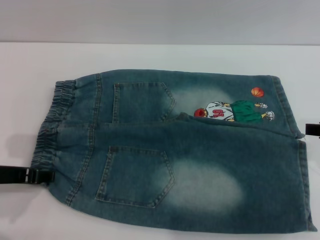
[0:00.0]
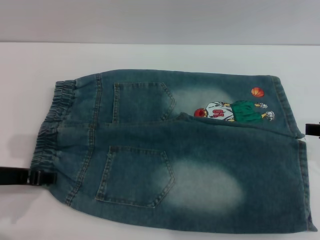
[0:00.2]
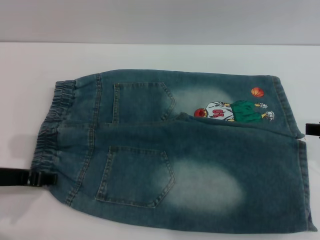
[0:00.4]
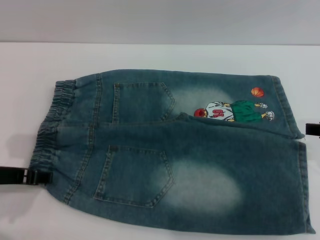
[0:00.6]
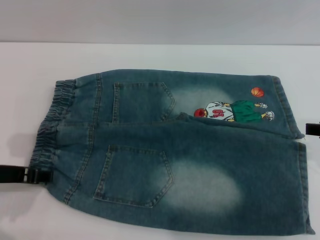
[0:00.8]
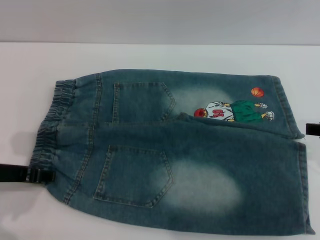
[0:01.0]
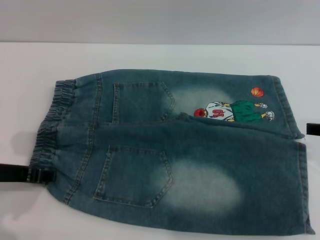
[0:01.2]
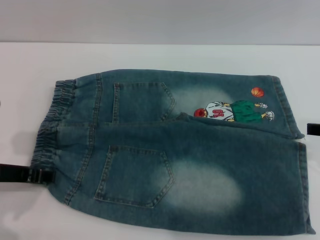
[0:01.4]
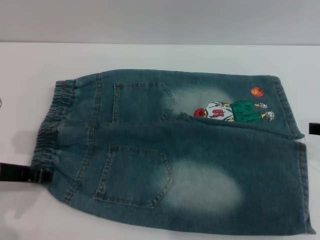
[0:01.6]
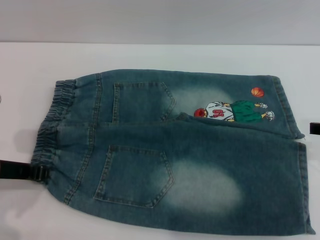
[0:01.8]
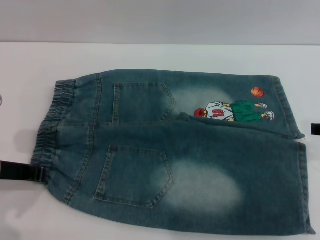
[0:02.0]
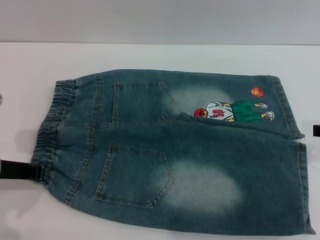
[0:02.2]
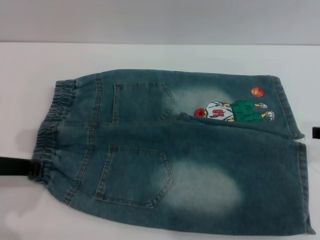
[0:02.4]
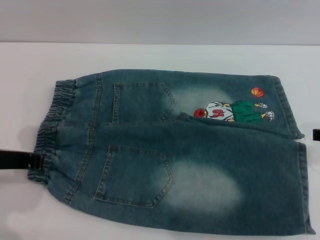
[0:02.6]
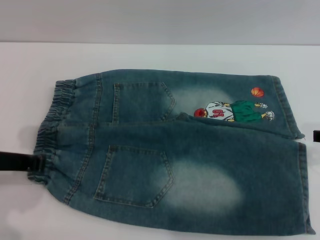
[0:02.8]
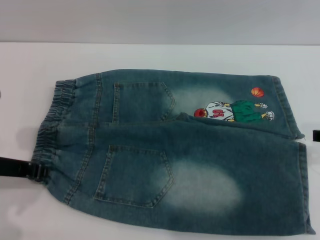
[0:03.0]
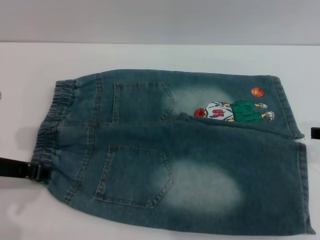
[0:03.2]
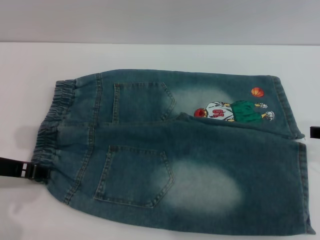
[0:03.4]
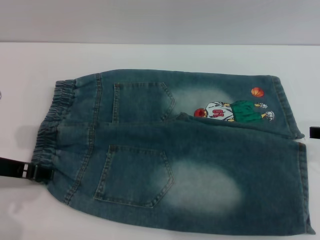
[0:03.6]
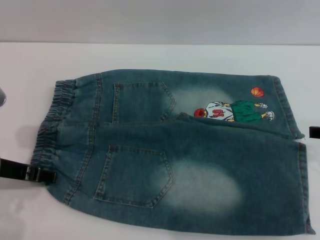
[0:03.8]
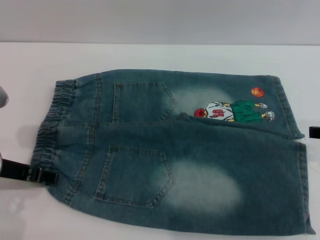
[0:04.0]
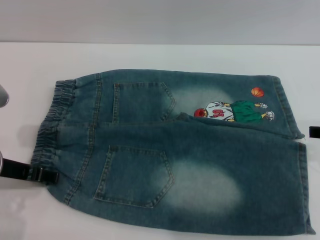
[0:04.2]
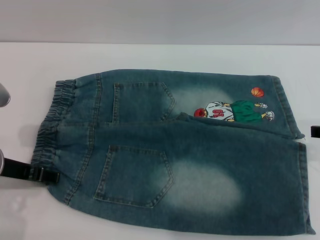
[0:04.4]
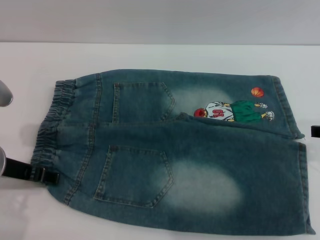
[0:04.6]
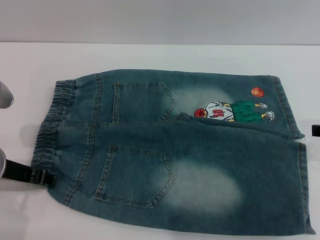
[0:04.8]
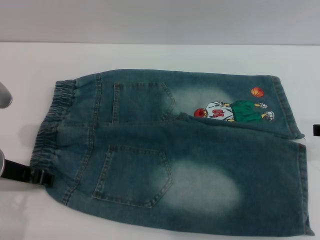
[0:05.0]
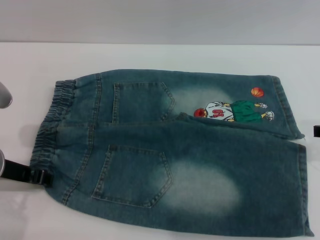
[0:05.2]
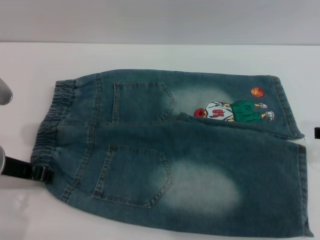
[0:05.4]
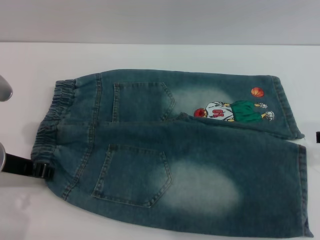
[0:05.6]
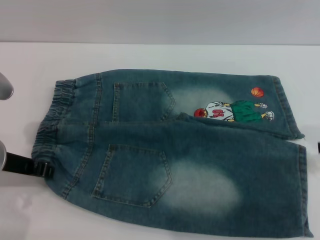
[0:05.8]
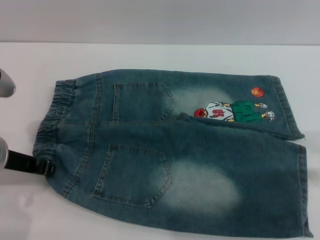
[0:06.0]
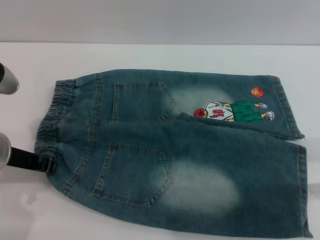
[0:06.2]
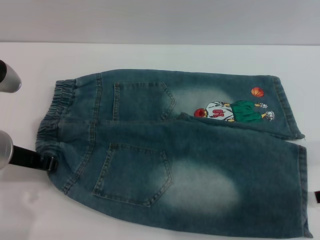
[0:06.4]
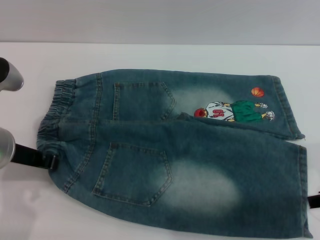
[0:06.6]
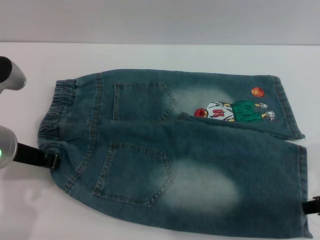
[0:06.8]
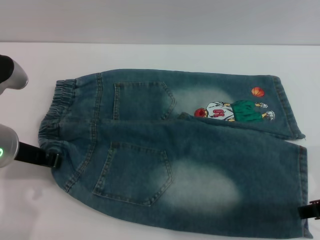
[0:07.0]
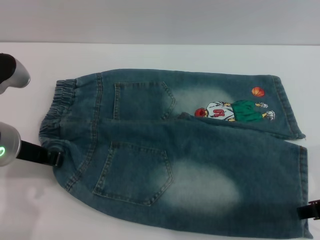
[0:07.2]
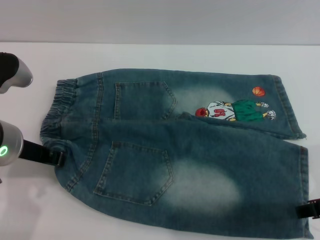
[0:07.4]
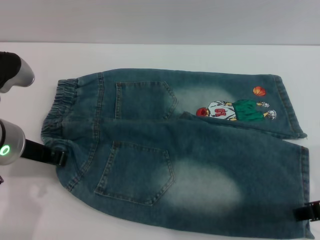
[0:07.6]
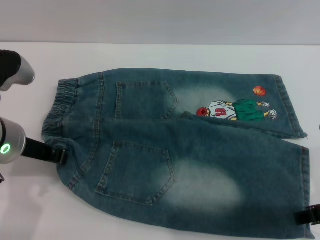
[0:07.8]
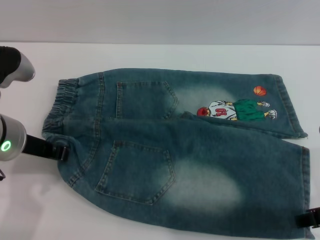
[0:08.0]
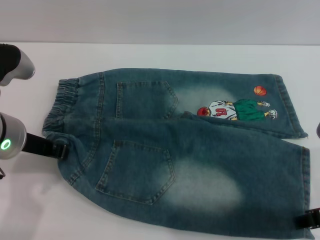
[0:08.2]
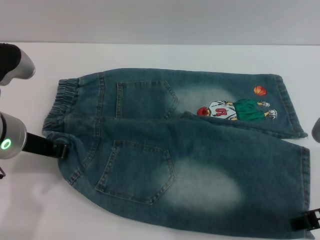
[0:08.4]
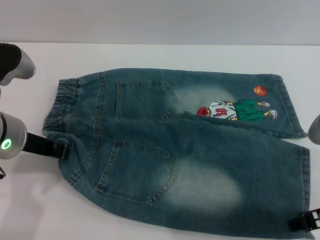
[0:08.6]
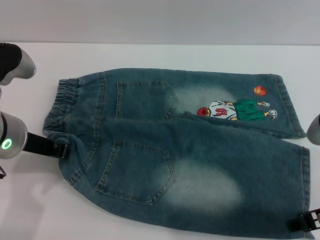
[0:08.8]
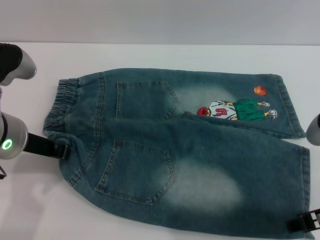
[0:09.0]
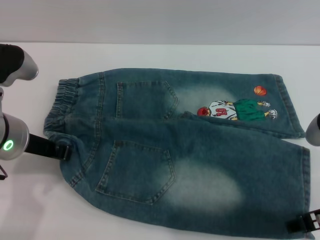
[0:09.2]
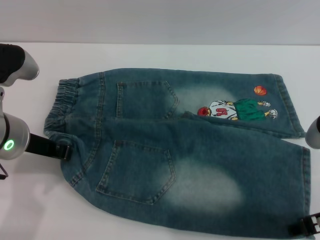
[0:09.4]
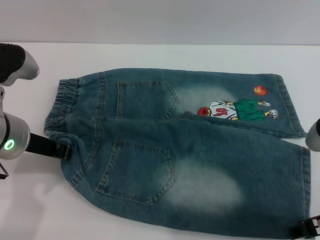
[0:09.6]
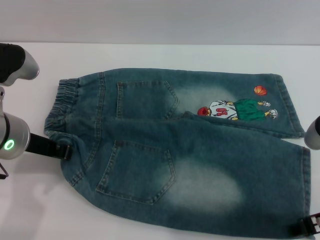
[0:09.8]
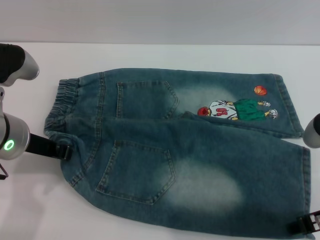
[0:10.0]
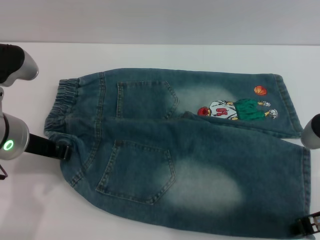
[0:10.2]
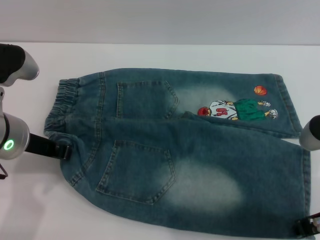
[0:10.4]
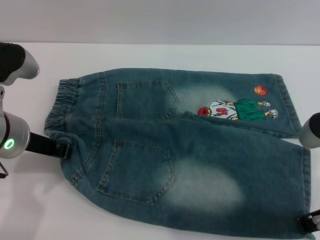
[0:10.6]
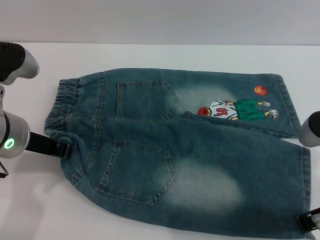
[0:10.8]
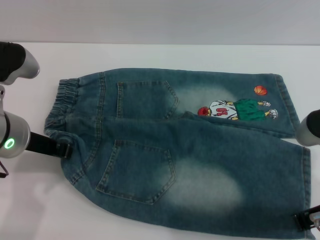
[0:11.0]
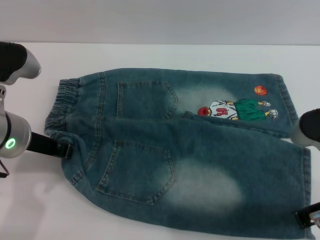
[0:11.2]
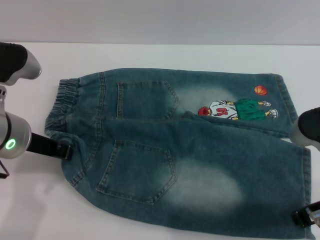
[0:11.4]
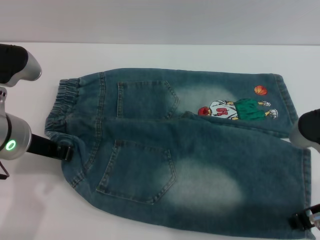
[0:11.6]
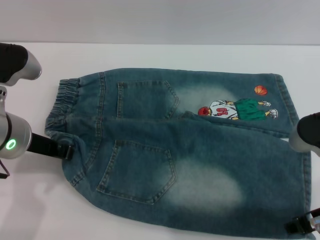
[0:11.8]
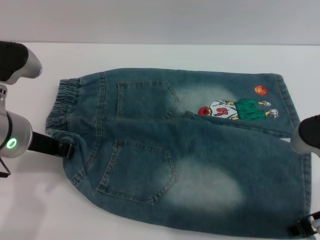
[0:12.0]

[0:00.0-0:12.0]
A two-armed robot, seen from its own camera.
0:00.0 to 0:01.6: Both grippers stay put.
0:01.6 to 0:03.0: The left gripper closes up.
0:03.0 to 0:04.4: The left gripper opens up.
0:04.4 to 0:06.0: The left gripper closes.
0:06.0 to 0:07.6: There are only small adjustments of the grippers.
0:07.6 to 0:09.0: Both grippers stay about where they are.
0:09.0 to 0:10.4: Neither gripper changes place.
0:10.4 to 0:12.0: The right gripper closes and opens again.

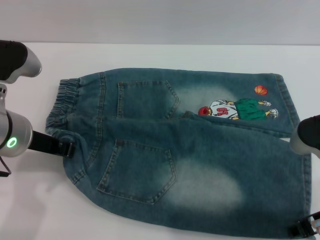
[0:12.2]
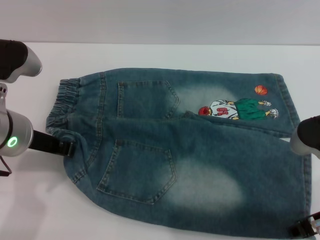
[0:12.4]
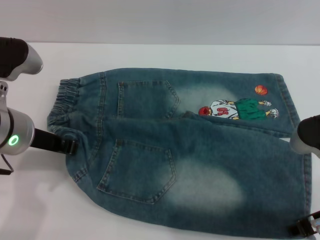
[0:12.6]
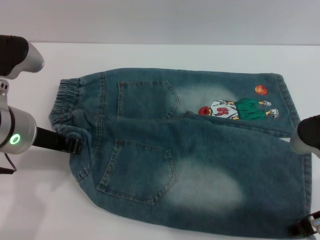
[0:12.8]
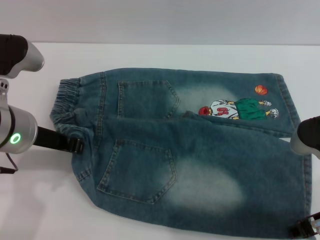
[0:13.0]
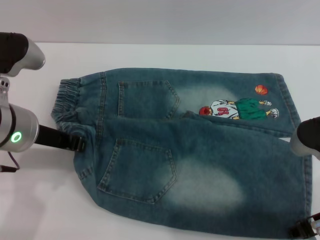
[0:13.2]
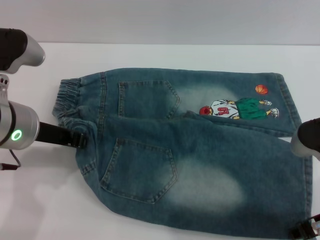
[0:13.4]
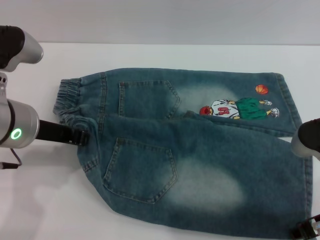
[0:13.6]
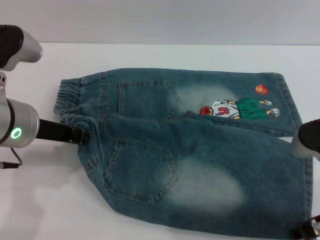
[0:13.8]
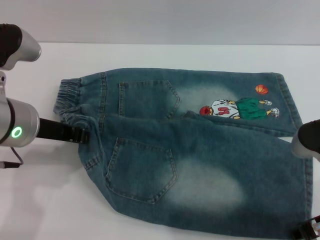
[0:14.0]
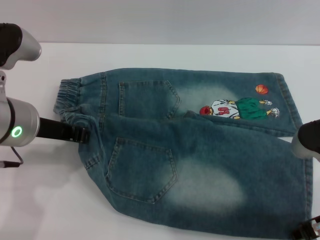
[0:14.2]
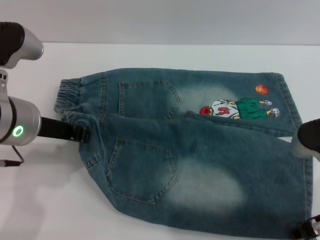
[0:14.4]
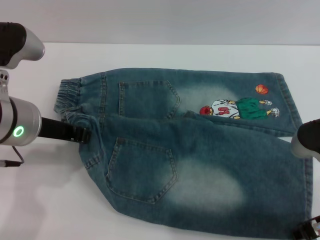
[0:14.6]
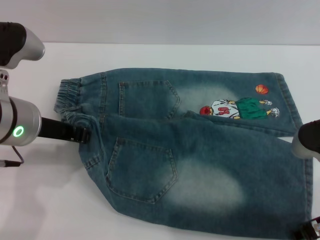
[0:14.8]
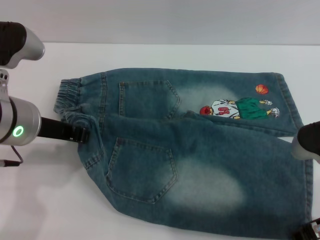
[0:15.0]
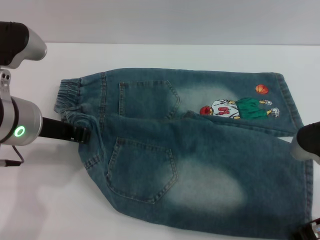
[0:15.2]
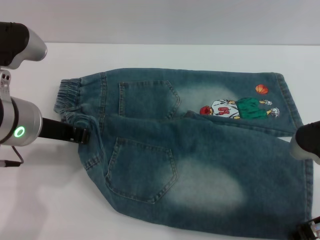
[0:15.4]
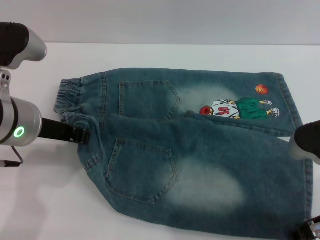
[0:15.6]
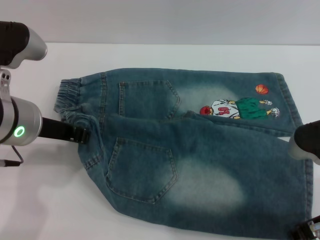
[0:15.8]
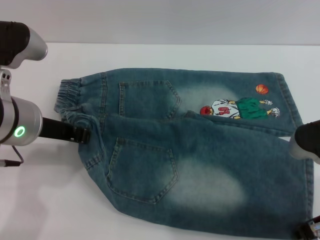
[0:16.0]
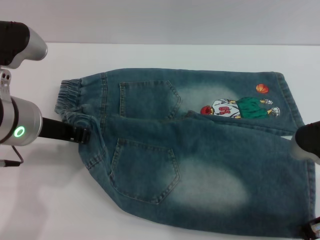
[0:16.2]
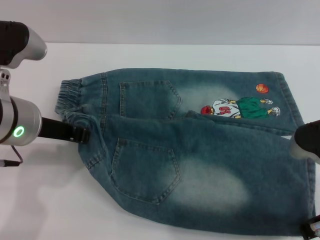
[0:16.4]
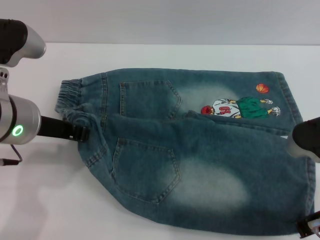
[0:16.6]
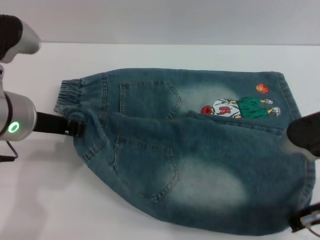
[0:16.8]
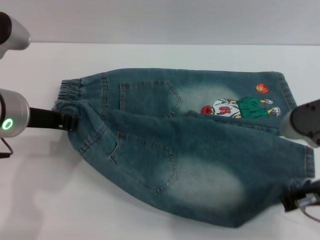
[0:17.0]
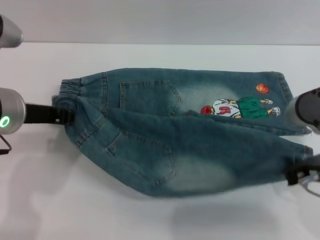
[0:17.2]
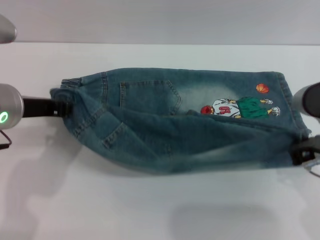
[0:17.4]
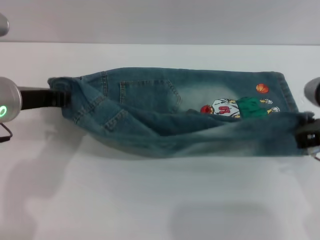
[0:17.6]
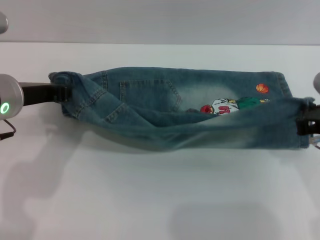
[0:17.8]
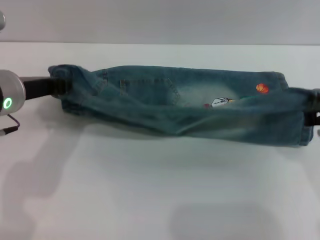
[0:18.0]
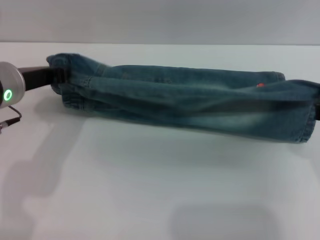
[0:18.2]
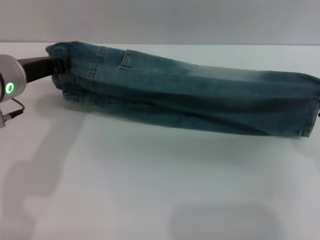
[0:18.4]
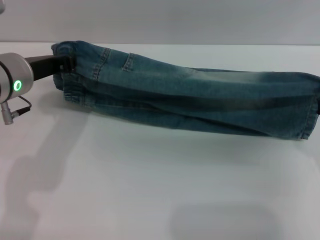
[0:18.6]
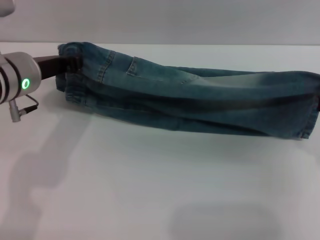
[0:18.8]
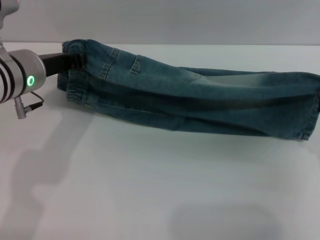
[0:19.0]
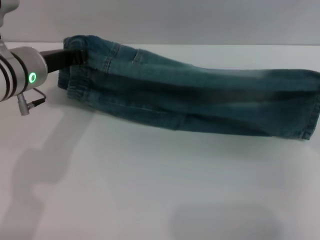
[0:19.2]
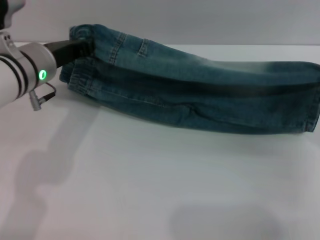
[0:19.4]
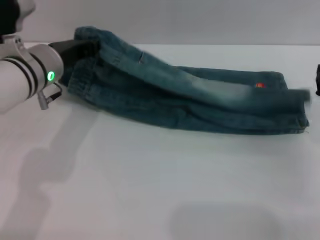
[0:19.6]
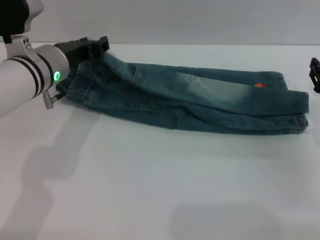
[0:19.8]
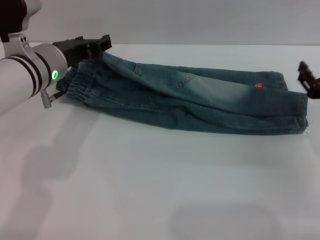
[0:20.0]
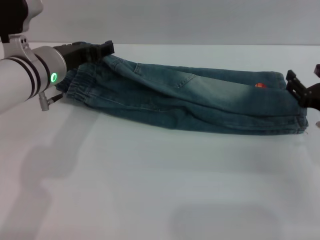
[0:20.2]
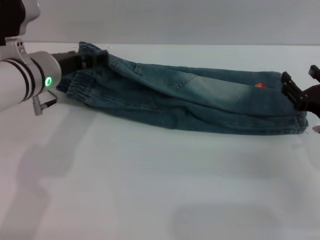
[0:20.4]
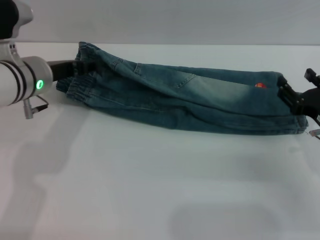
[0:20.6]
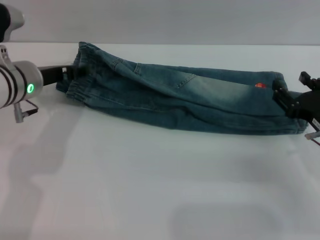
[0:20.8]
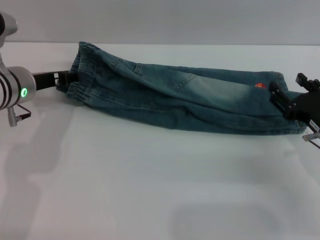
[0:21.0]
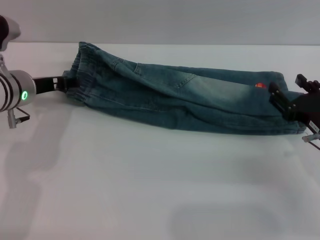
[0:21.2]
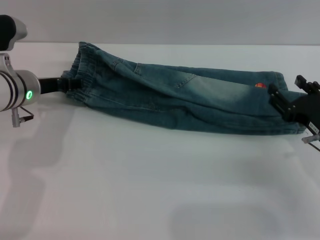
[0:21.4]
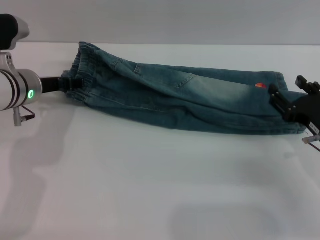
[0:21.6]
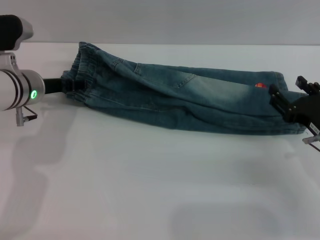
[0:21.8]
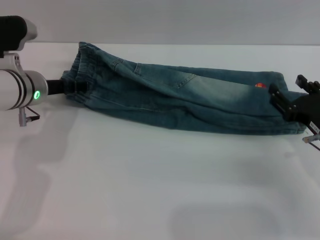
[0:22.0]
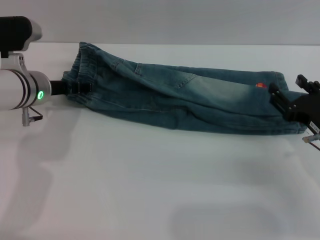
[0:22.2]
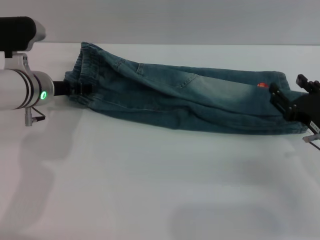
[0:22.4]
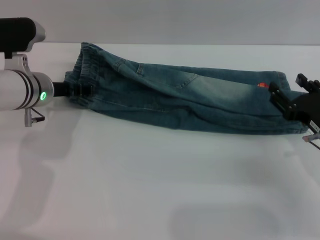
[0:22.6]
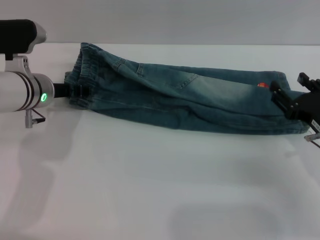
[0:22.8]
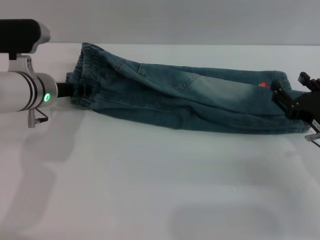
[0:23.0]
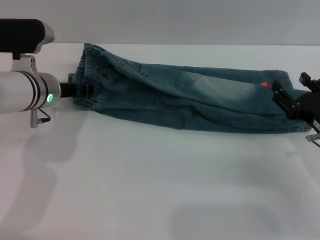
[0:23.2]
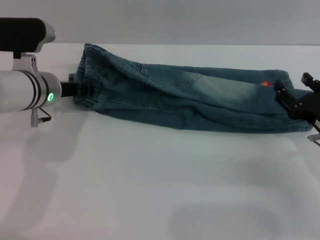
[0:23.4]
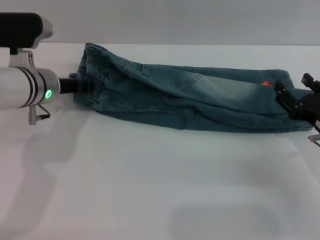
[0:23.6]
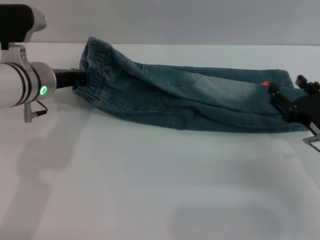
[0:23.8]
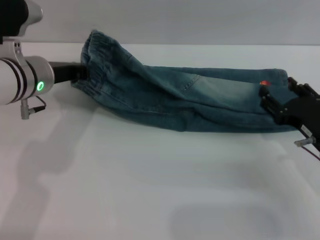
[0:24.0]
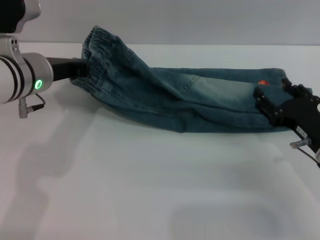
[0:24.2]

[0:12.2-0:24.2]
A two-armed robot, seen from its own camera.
Step, 0:12.2 to 0:20.0: Fold the bottom of the pants upward with both grippers.
0:12.2 to 0:13.8: The grippers make only small movements.
0:13.8 to 0:15.2: Neither gripper changes place.
0:15.2 to 0:16.6: The right gripper closes.
0:16.6 to 0:18.2: The right gripper shifts by approximately 5 cm.
0:18.2 to 0:19.8: The right gripper moves downward, to the right and forward, about 10 cm. Meanwhile the left gripper travels forward by some 5 cm.
0:19.8 to 0:21.2: The left gripper shifts approximately 5 cm to the left, and opens, while the right gripper ends up some 5 cm from where it was, and opens up.
0:21.2 to 0:22.6: The grippers stay close to where they were, moving slightly.
0:22.6 to 0:24.2: The left gripper goes roughly 5 cm upward, and closes.
